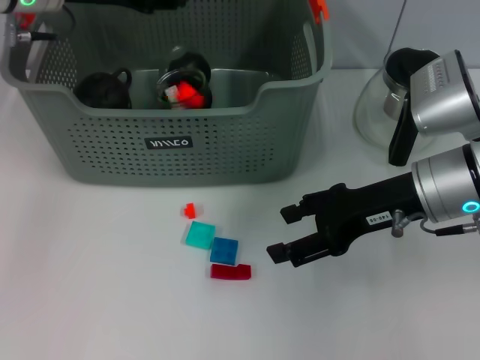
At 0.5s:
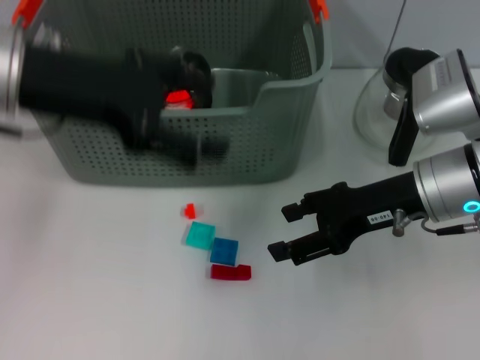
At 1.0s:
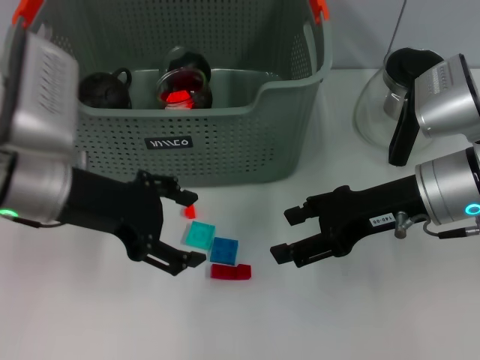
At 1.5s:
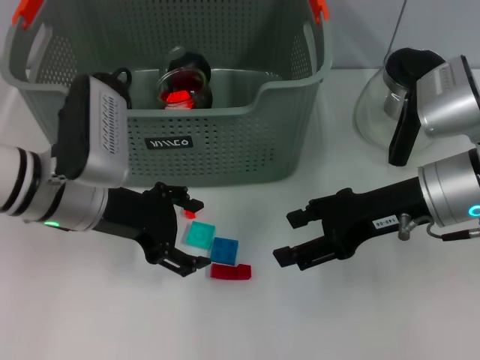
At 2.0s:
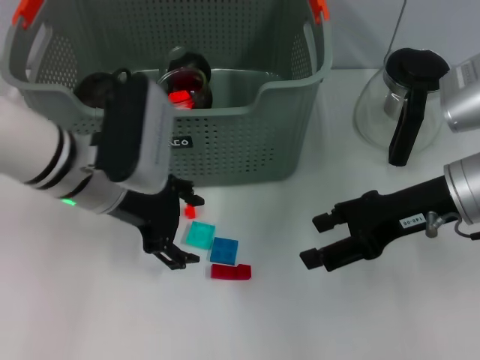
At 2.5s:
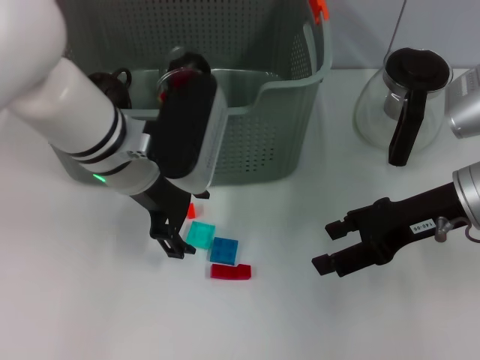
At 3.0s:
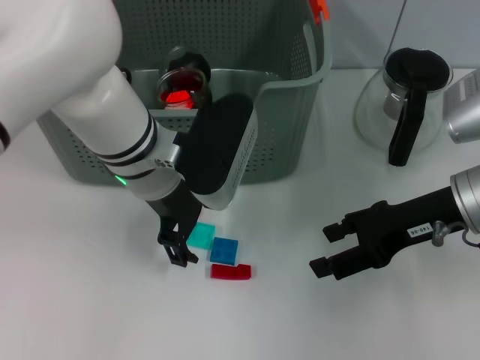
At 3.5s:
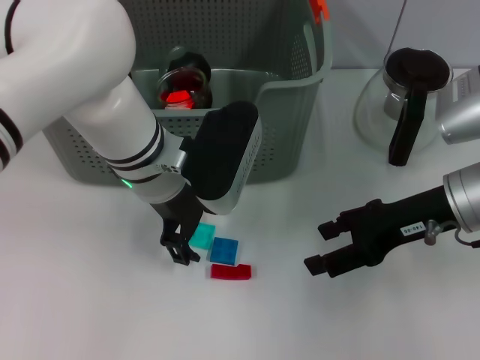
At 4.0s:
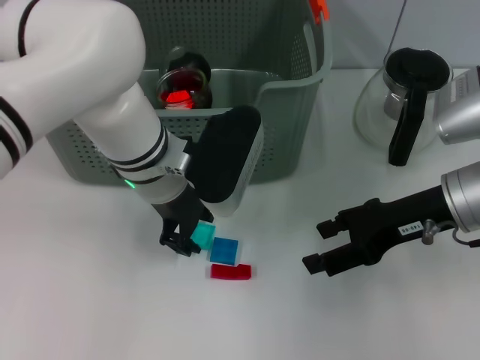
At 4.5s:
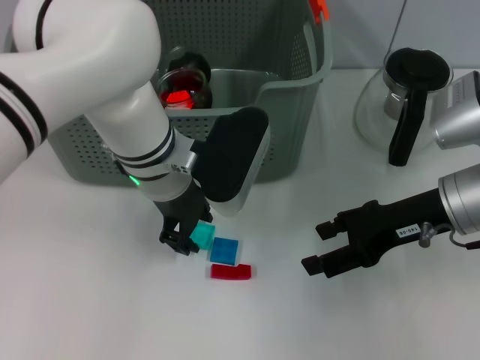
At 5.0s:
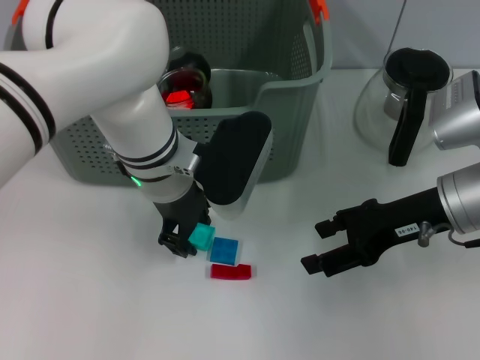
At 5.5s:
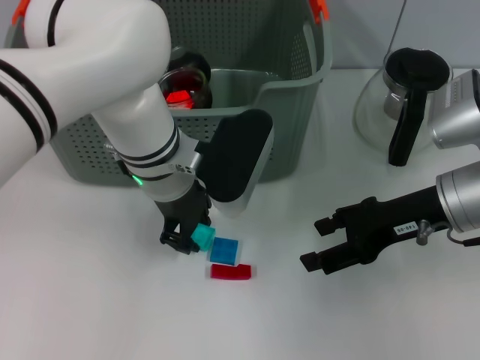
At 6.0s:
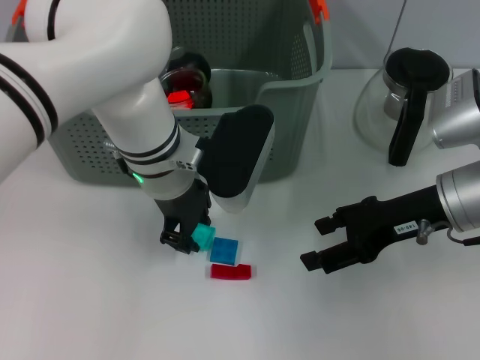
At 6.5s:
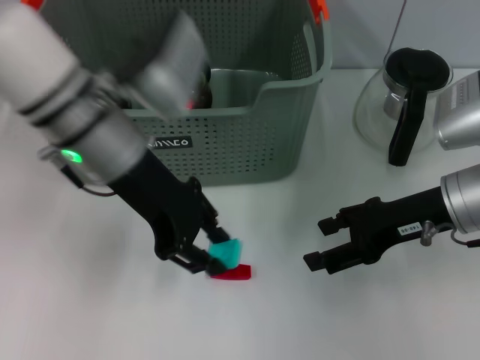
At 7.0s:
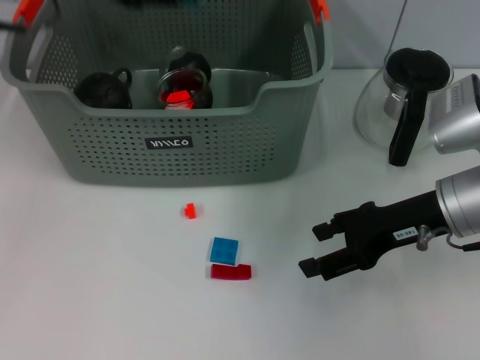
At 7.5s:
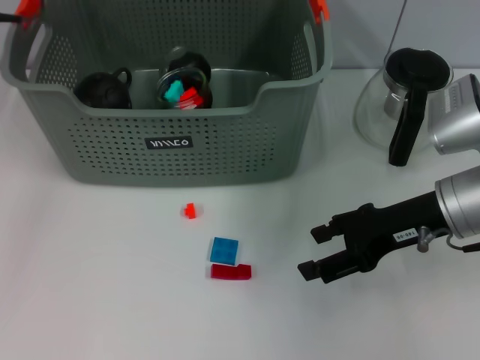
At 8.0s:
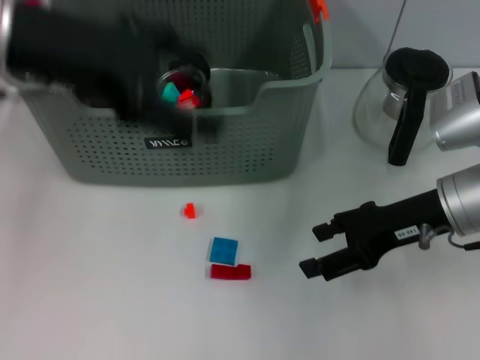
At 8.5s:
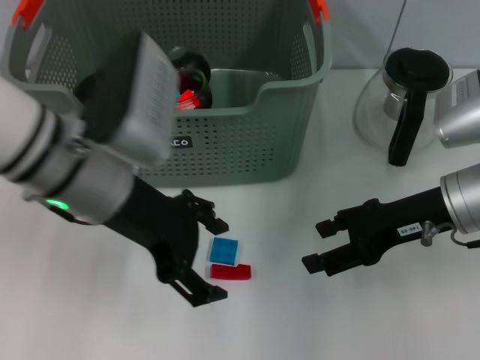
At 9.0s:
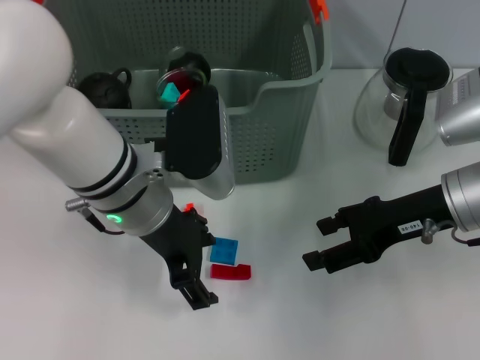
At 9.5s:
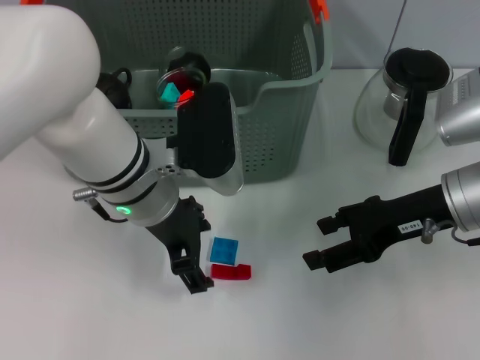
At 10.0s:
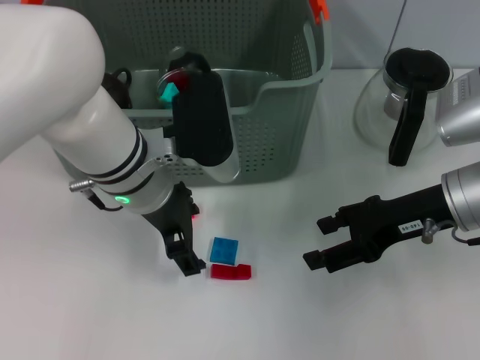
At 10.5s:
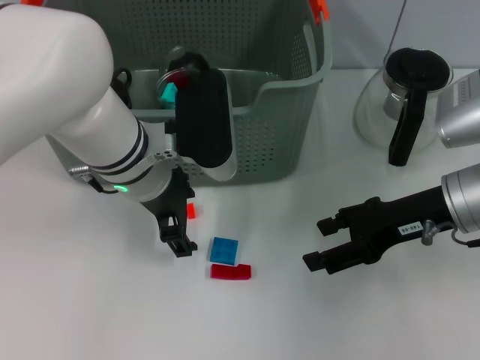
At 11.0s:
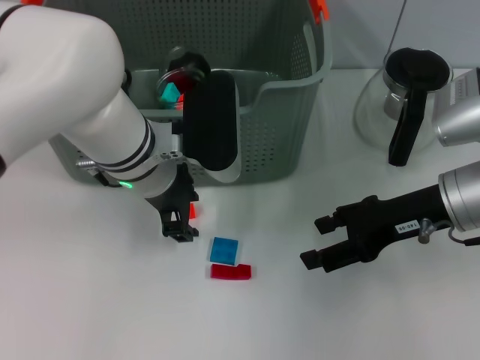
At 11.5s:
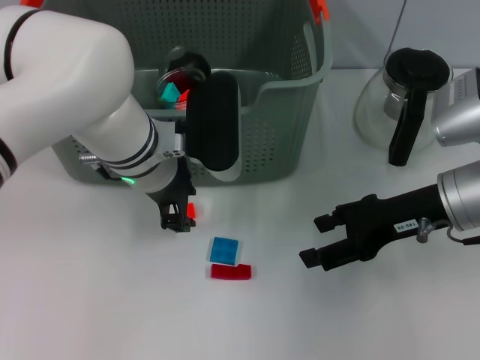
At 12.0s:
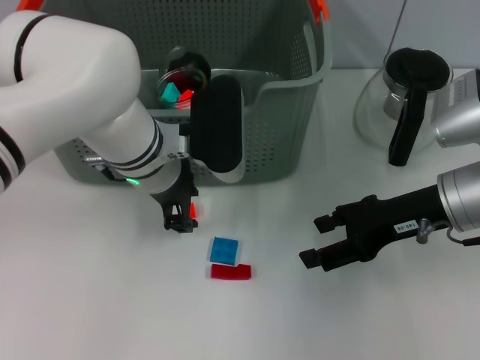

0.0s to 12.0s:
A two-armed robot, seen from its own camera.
Task of the whole recording: pick up the teacup on the table and place it into the storage bin, pick up the block on the table and place it into the storage bin.
Step, 0.5s to 4.0s: Grasp the light blue block with left gripper.
Step, 5.0s to 7.5s: Place the light blue block in the storage box with left gripper.
0.0s to 2.0s: The left gripper goes roughly 15 cm downward, backward and to the right, and opens up.
2.0s to 4.0s: The left gripper goes roughly 5 cm to the right, and closes up.
4.0s to 6.0s: Neither gripper changes place.
6.0s to 8.0s: The left gripper heads upward and to the left, covering roughly 20 cm, and opens.
8.0s to 10.0s: The left gripper shifts about 15 cm downward and to the right.
10.0s to 12.0s: The left gripper closes up.

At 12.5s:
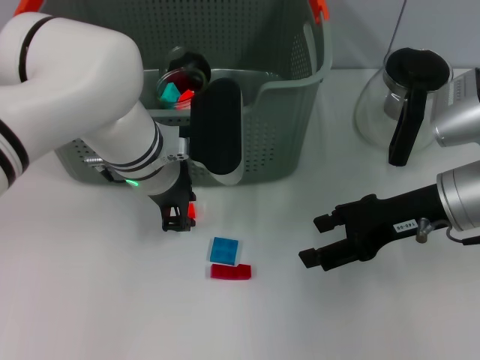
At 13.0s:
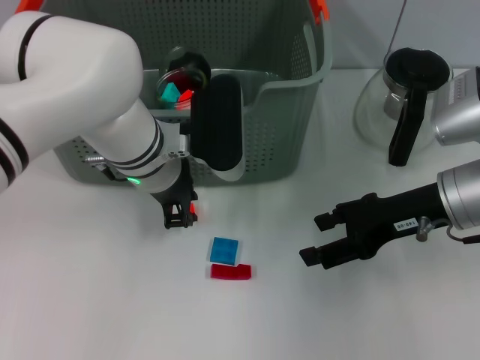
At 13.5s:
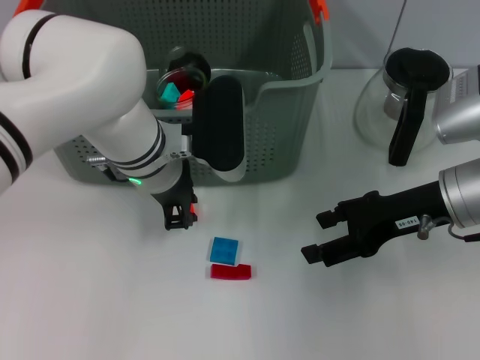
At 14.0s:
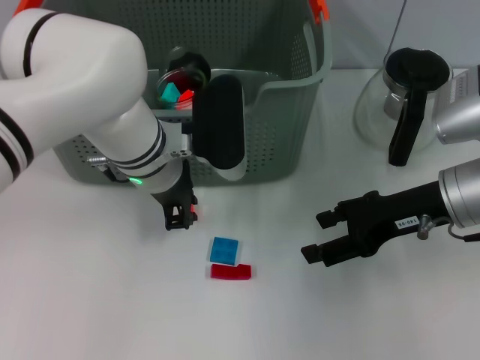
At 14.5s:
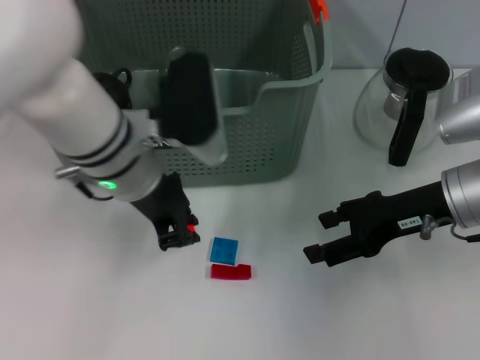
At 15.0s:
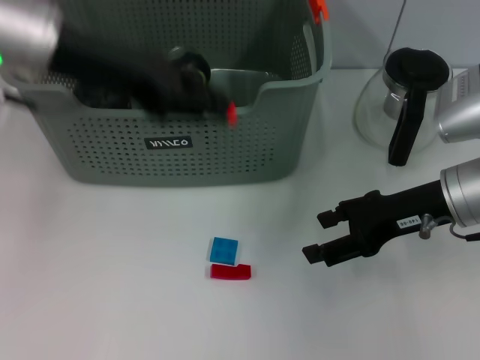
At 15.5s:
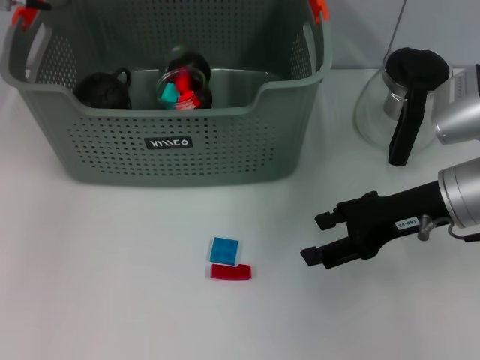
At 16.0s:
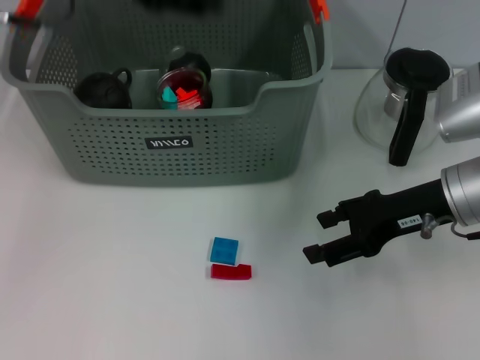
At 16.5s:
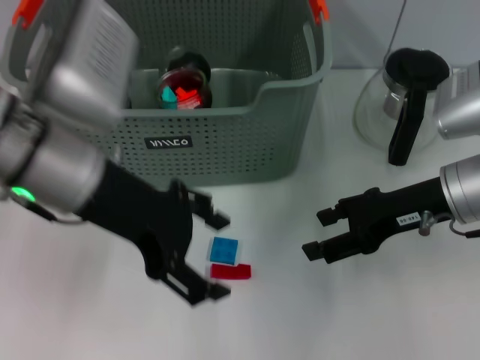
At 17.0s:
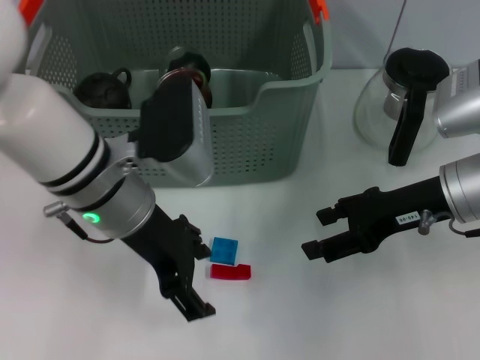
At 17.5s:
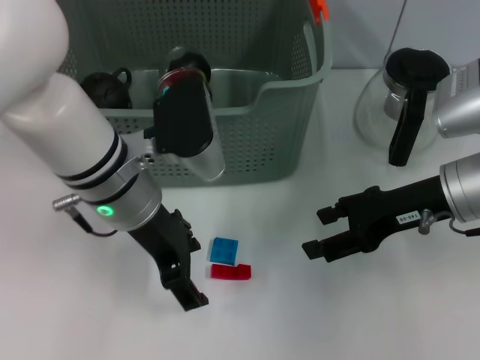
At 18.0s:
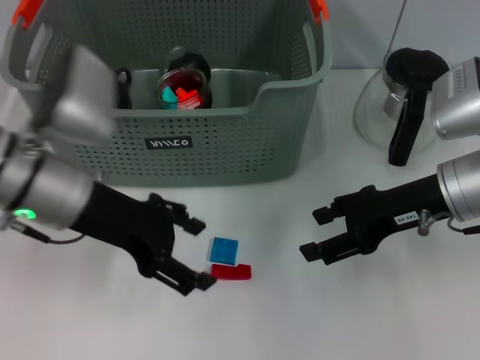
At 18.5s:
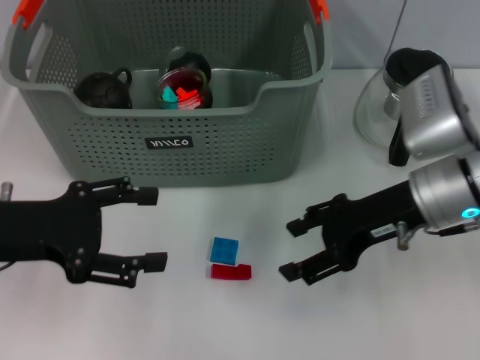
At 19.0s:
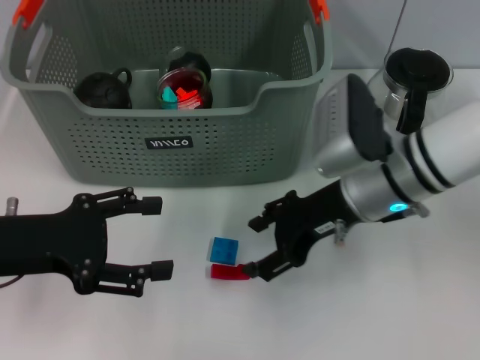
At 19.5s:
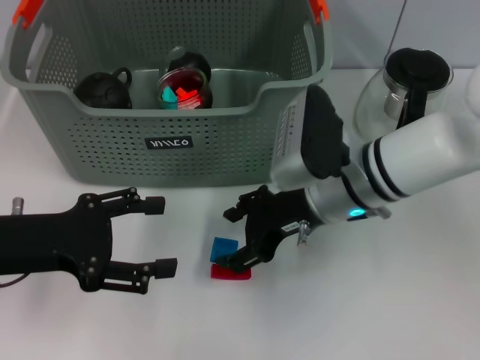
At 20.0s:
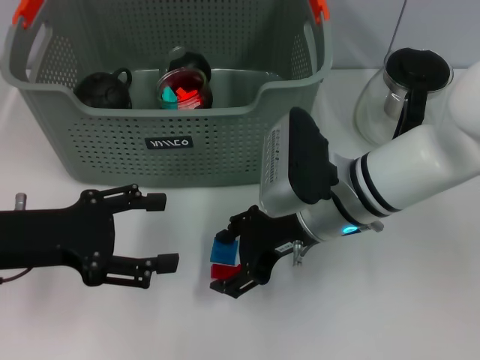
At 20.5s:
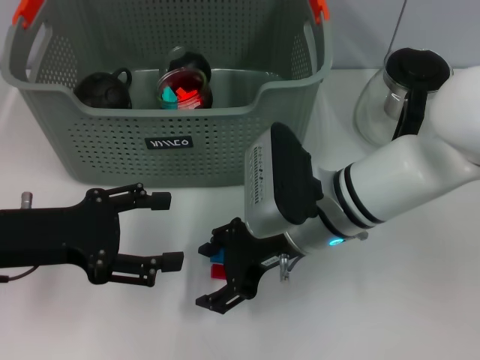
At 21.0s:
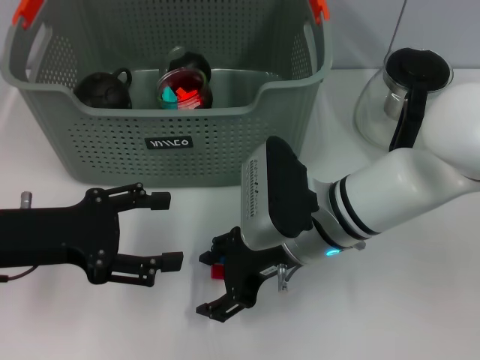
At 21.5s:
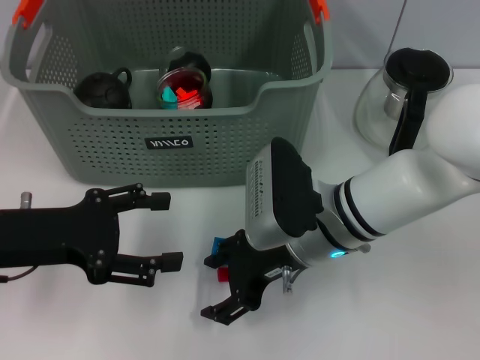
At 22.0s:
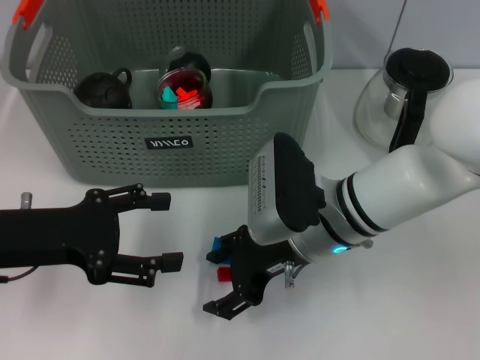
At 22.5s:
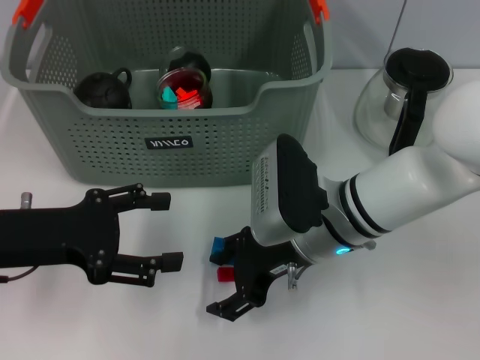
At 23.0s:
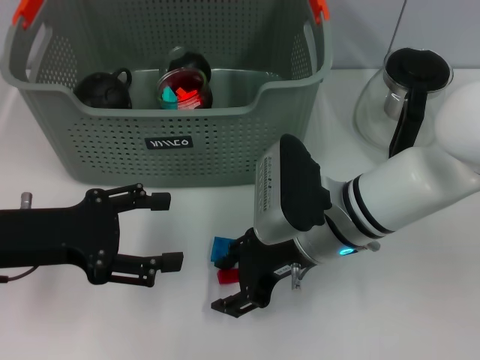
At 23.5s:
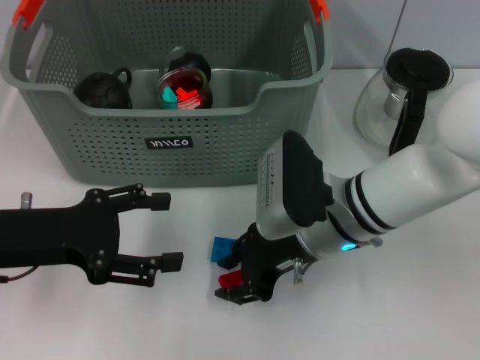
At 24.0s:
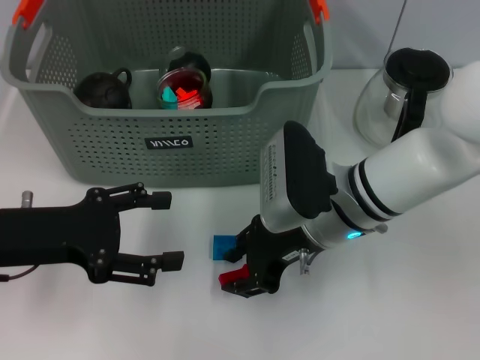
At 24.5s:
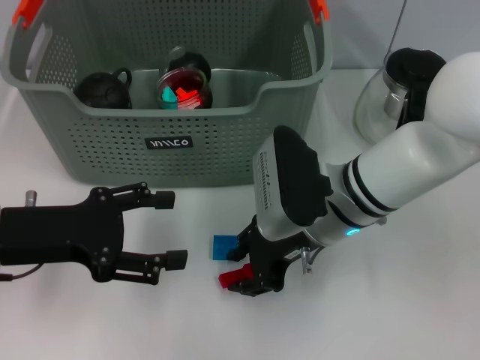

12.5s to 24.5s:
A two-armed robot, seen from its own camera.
Task of the whole recording: pick up the teacup on the table and place it into the storage bin, pick up the block on the table and place it into the storage bin.
Step, 13.0s to 16.0s: Place the orange block in the storage box with left gripper.
12.5s to 14.5s: The grippers make only small movements.
14.5s to 16.5s: The left gripper travels upward by roughly 5 cm, reaches roughly 10 cm forward, then returns, and opens.
16.5s to 18.5s: The left gripper moves to the left and downward, about 15 cm.
18.5s to 20.5s: The right gripper moves to the left, about 10 cm.
20.5s to 22.5s: The two grippers keep their place.
22.5s to 24.5s: The right gripper closes.

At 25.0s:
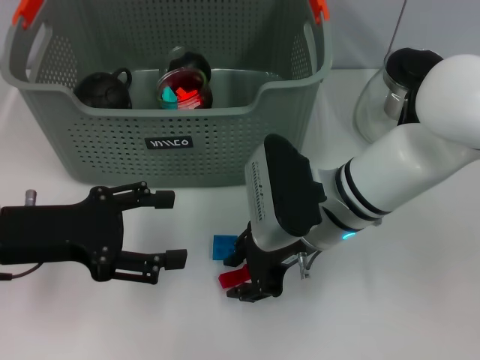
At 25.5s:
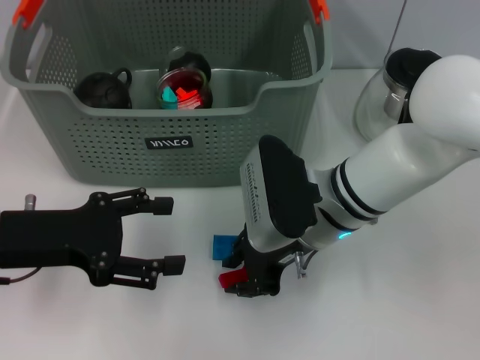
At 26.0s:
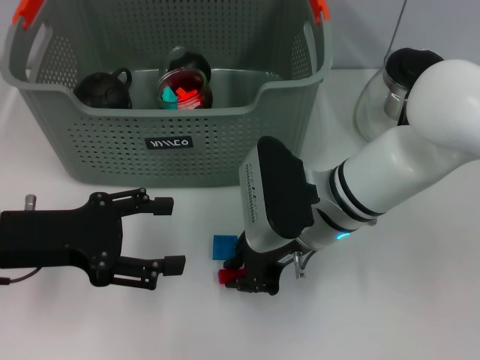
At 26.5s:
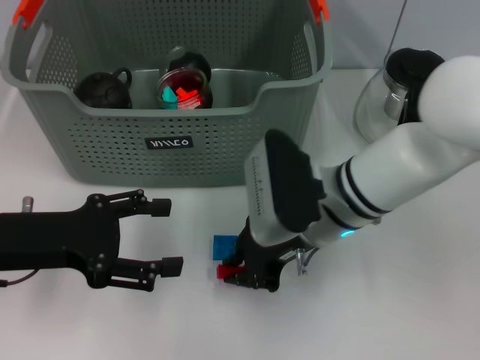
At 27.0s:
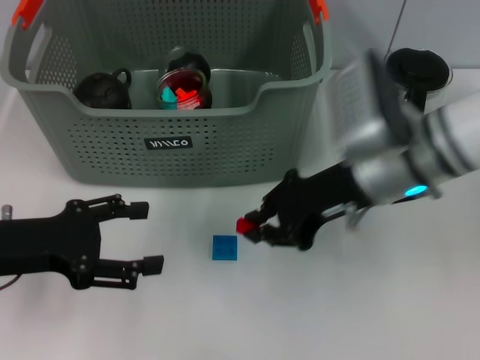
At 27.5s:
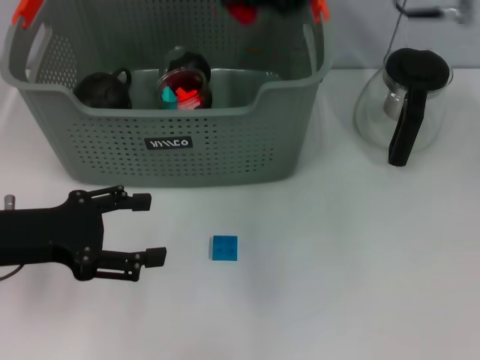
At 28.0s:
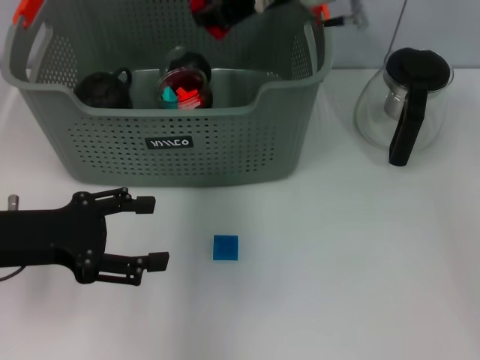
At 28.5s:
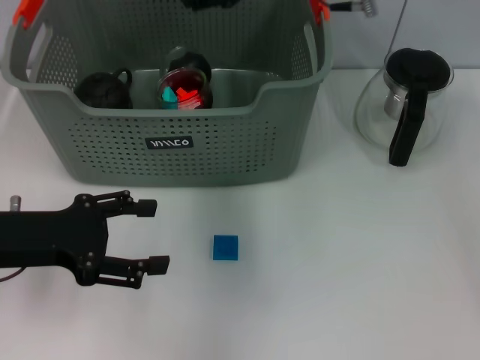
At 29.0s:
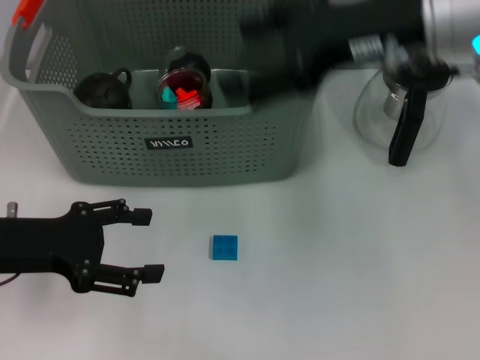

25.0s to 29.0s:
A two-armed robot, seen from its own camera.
Task of the whole recording: pick up the teacup on the table and place it into the storage bin, pick up the block on the table and place it into the storage bin.
Step, 26.5s to 28.0s: Place the red block in the storage box with right gripper.
25.0s to 27.0s: The right gripper shifts about 10 cm to the right and upward.
27.0s to 29.0s: The right gripper goes about 10 cm upward, and opens up.
